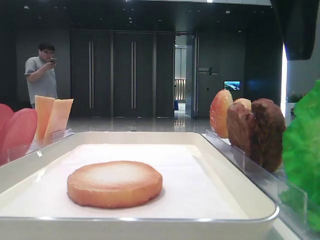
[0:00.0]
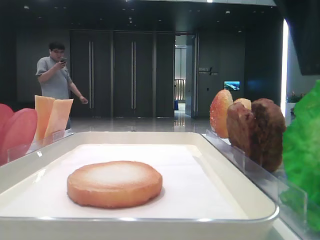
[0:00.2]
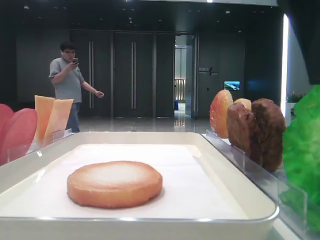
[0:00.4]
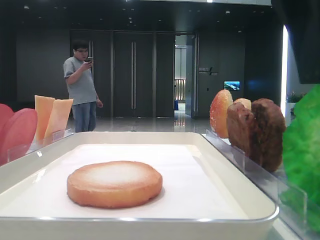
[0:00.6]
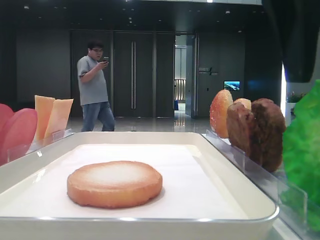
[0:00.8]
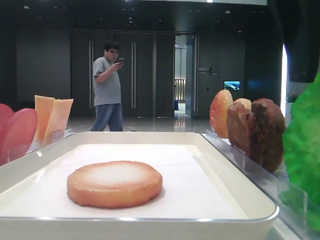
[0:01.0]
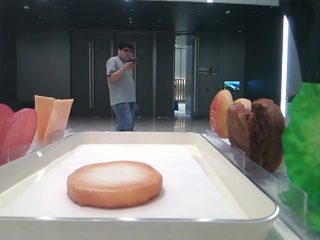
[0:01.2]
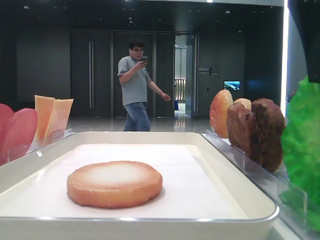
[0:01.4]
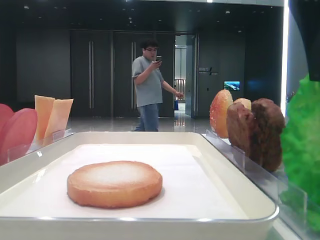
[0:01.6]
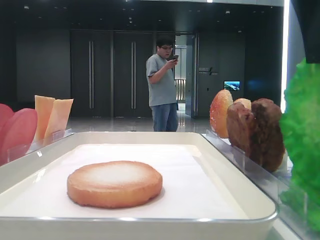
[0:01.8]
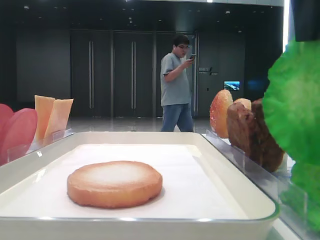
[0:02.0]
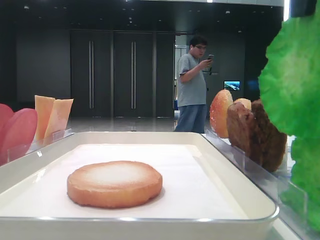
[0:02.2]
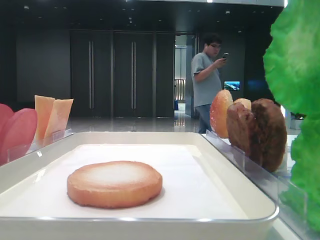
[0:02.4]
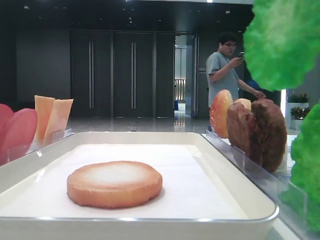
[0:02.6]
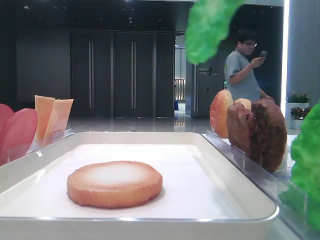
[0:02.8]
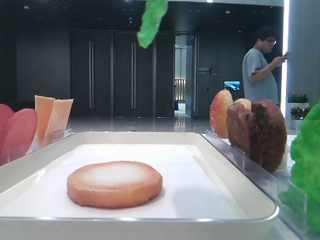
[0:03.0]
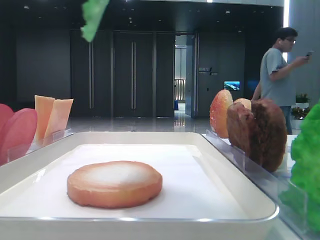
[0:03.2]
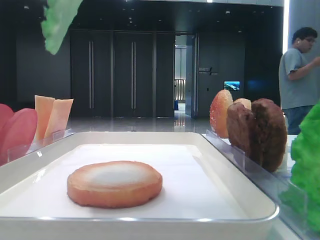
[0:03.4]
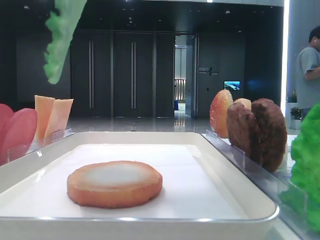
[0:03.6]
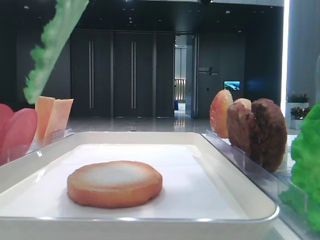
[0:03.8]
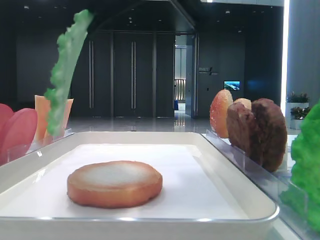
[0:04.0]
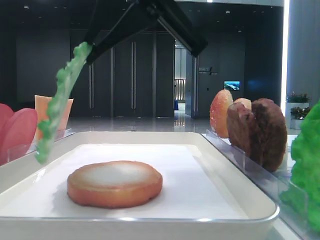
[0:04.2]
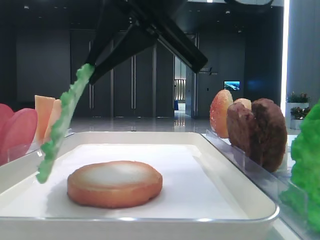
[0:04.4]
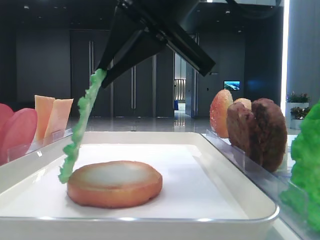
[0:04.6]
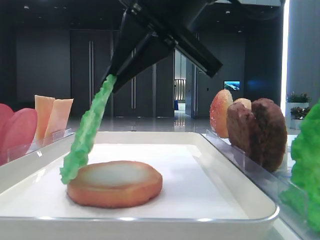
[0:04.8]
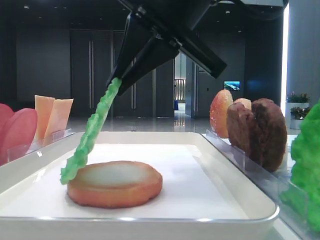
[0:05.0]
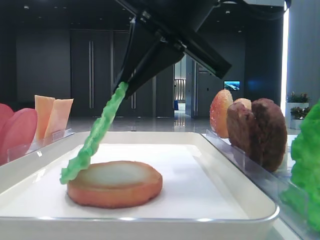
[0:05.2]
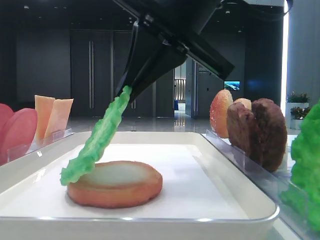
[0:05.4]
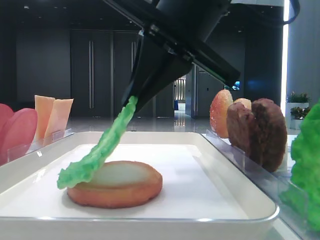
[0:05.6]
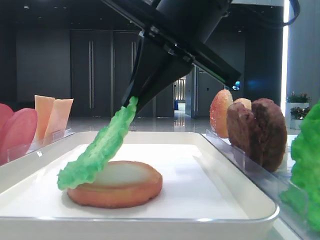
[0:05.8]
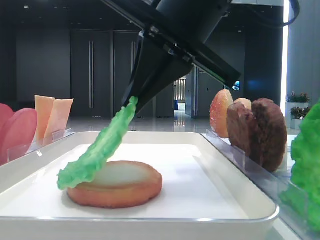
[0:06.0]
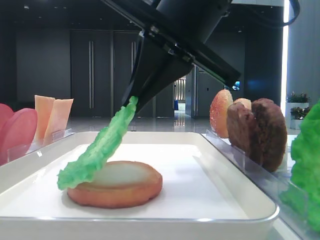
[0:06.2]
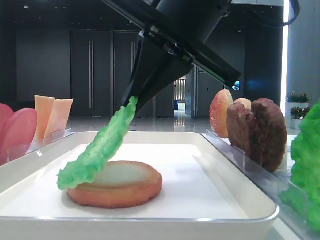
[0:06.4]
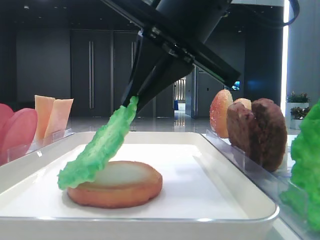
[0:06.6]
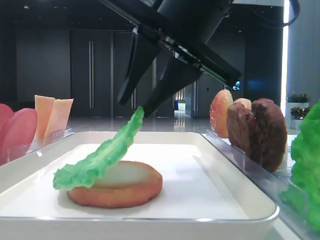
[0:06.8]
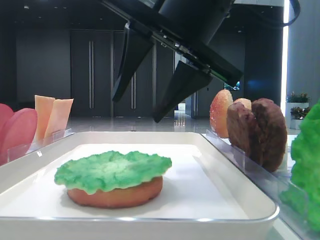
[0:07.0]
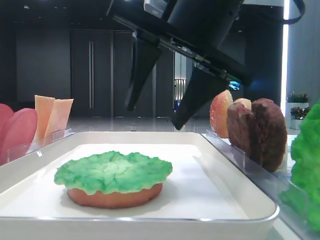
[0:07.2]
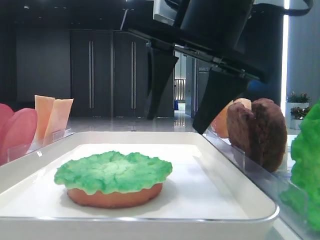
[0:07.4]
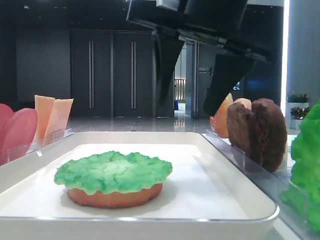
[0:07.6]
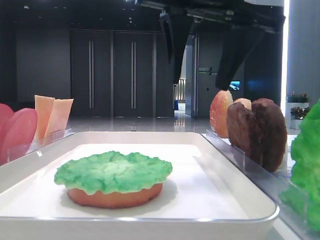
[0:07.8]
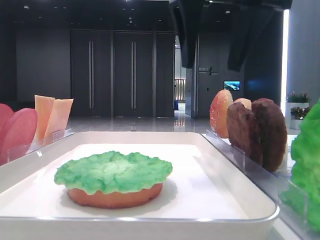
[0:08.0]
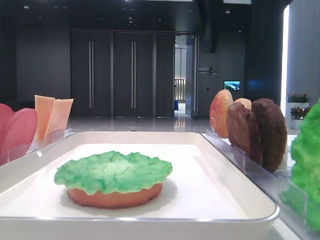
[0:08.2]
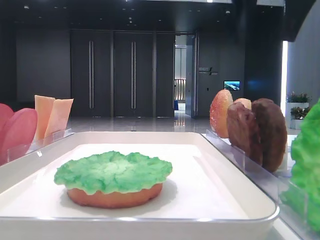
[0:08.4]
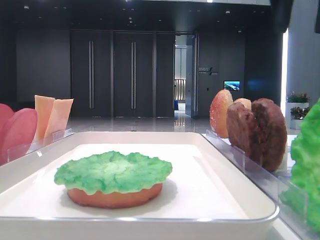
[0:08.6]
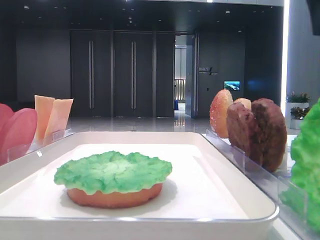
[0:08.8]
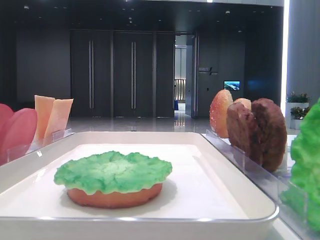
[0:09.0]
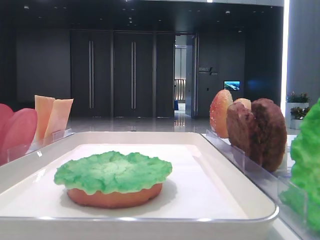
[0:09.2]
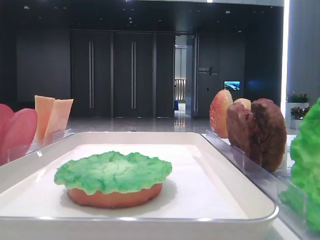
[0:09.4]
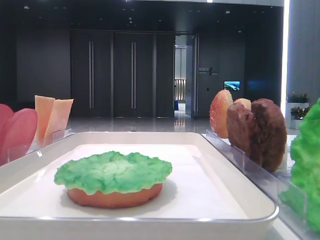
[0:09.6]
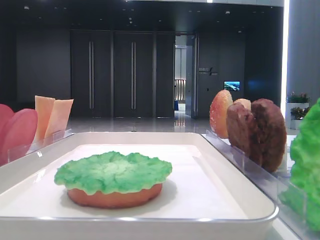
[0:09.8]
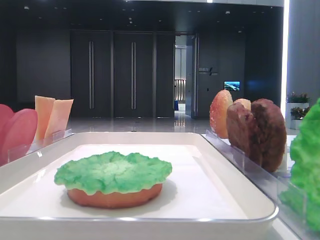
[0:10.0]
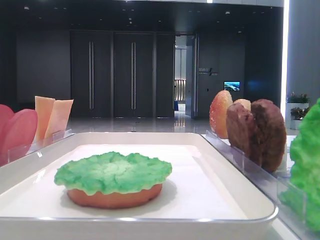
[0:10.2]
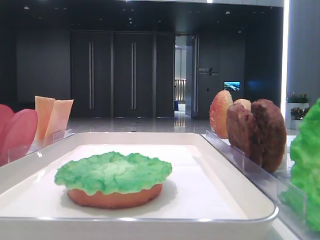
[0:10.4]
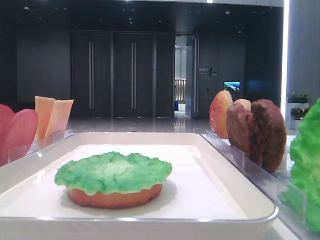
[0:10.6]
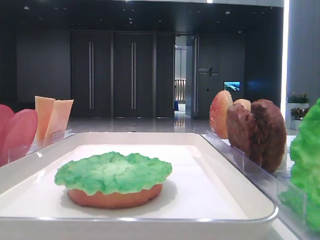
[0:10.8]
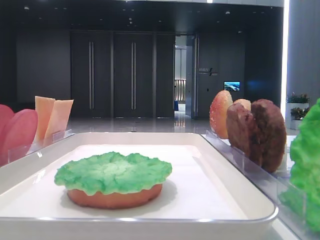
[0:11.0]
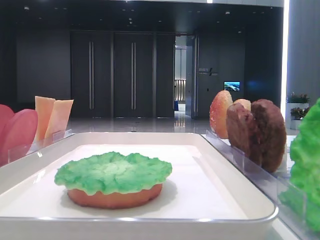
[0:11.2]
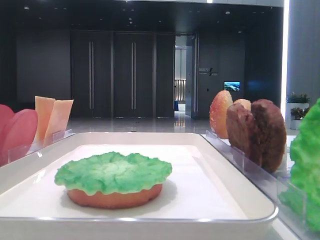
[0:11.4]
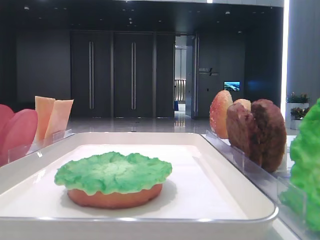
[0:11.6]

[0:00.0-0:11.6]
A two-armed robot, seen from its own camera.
Step, 0:01.4 to 0:07.0: Place the lettuce leaf on the bread slice with the right hand.
0:00.0 to 0:01.4: The right gripper closes its fingers.
0:01.4 to 0:02.8: The right gripper travels upward by some 10 cm.
0:02.8 to 0:04.4: The right gripper travels downward, to the left and forward by approximately 15 cm.
0:04.4 to 0:05.8: The grippers stay close to where they were, moving slightly.
0:05.8 to 0:07.2: The right gripper opens.
0:07.2 to 0:08.8: The right gripper heads to the right and upward, covering roughly 20 cm.
0:08.8 to 0:10.2: The right gripper goes approximately 20 cm backward.
